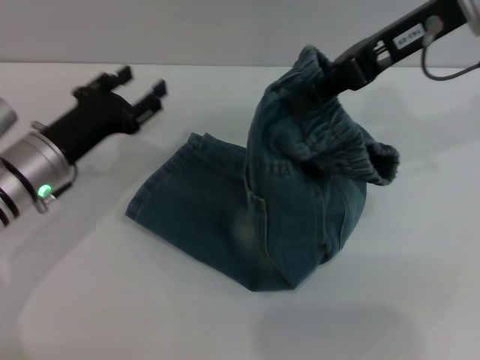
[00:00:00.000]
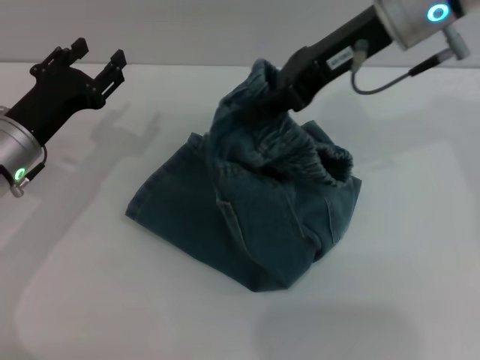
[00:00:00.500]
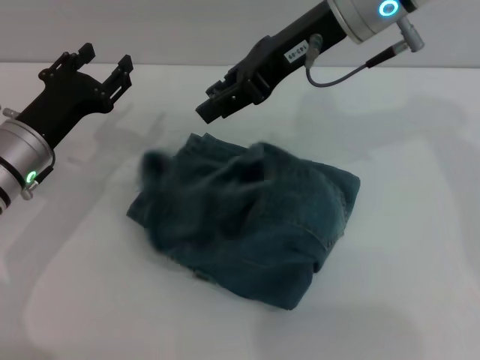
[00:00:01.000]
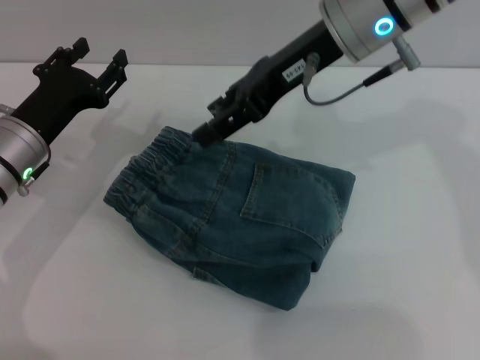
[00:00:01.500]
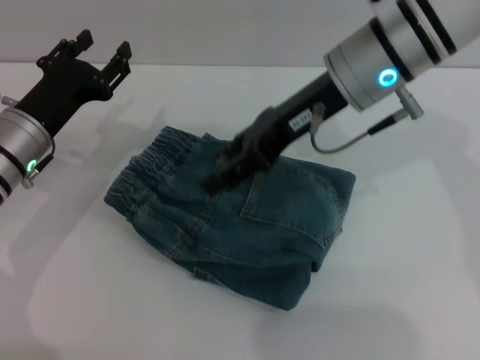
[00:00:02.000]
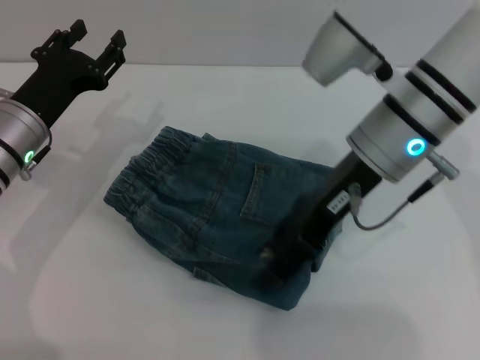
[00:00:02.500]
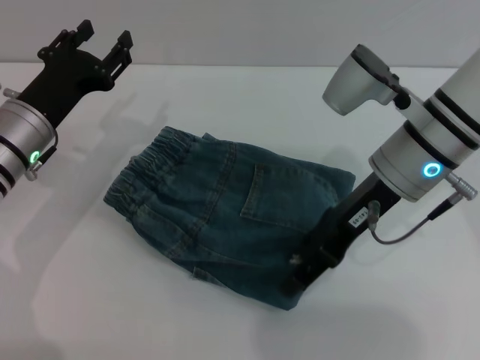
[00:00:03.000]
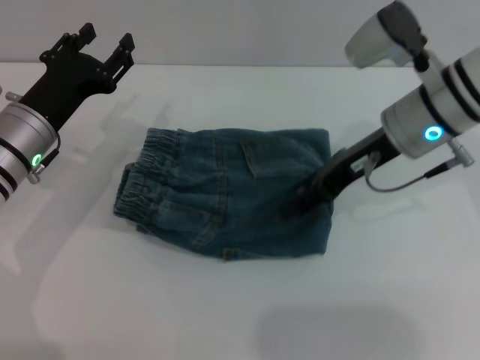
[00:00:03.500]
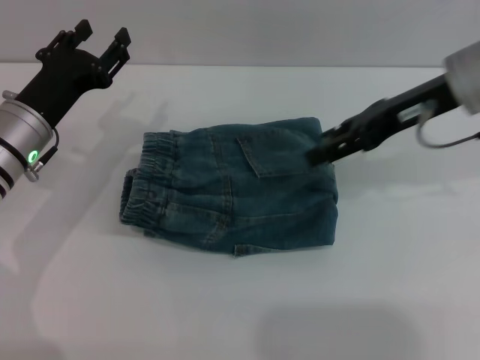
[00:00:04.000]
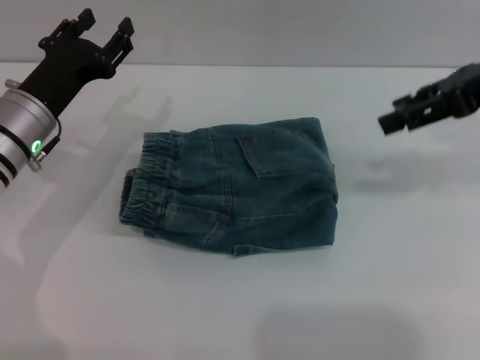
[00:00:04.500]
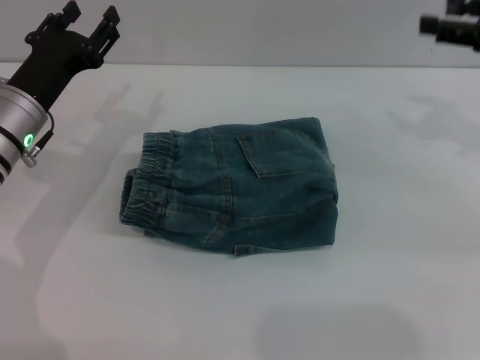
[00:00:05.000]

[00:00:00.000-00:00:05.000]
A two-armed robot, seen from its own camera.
Step, 00:00:01.500 to 00:00:03.500: Place the folded trousers onto the center area with the right grippers.
00:00:00.000 to 00:00:02.500: The right gripper travels downward and to the left by approximately 10 cm, and opens.
00:00:02.500 to 00:00:05.000: The right gripper goes about 20 cm to the right.

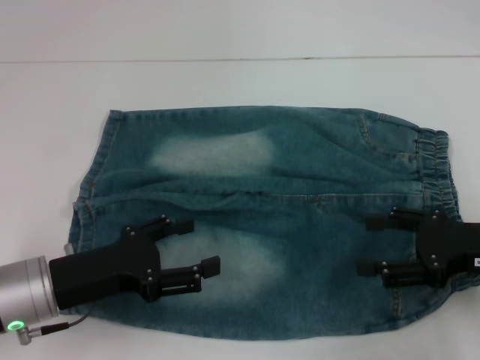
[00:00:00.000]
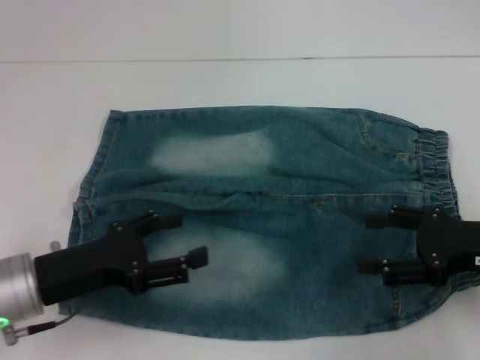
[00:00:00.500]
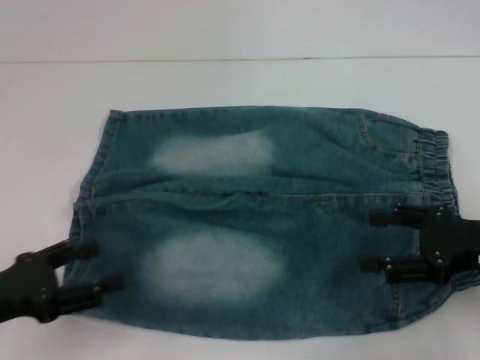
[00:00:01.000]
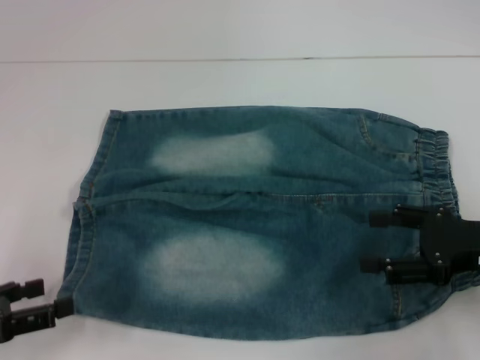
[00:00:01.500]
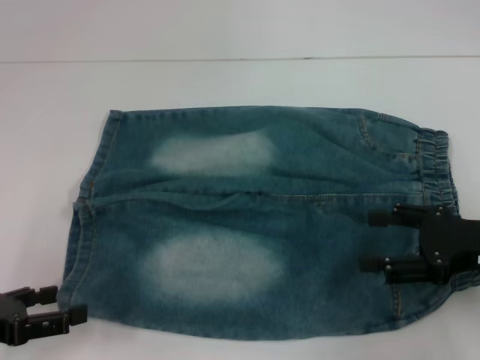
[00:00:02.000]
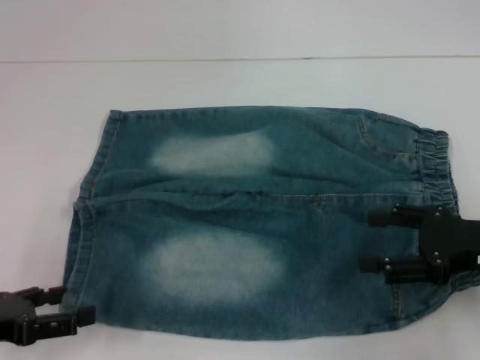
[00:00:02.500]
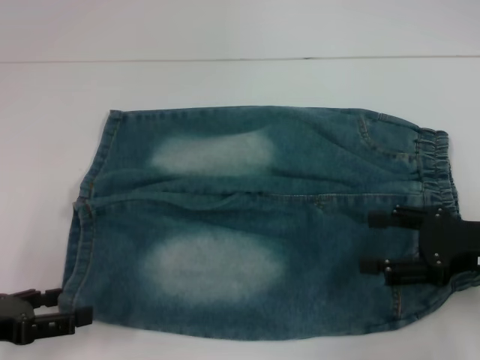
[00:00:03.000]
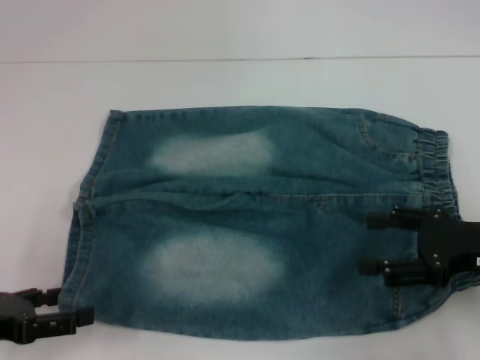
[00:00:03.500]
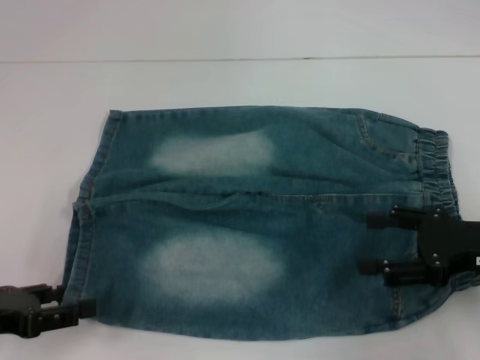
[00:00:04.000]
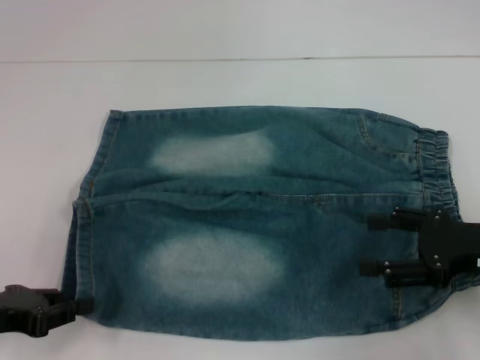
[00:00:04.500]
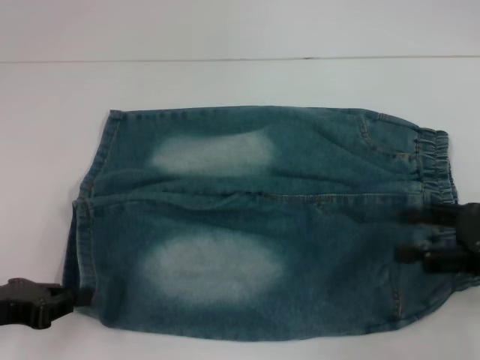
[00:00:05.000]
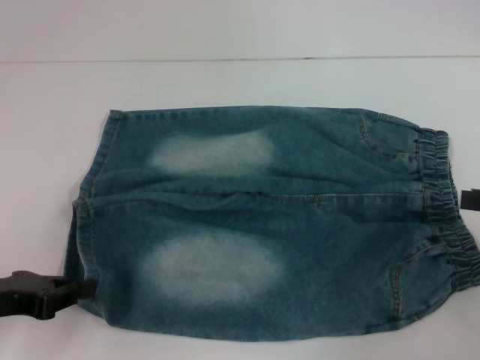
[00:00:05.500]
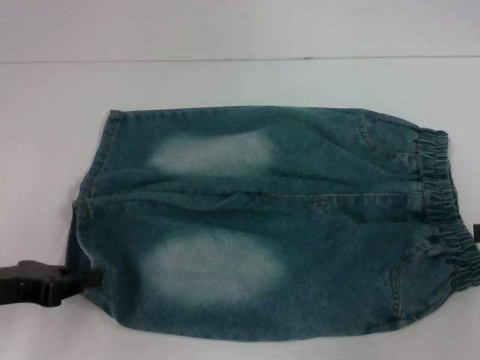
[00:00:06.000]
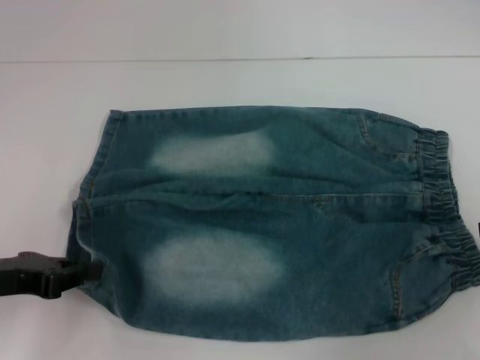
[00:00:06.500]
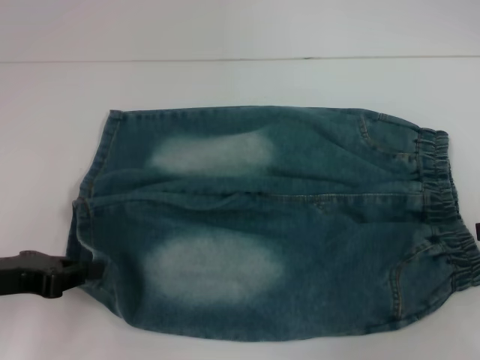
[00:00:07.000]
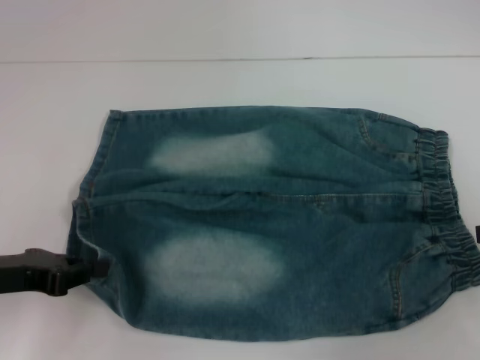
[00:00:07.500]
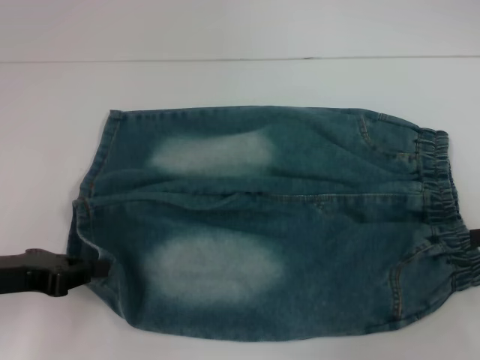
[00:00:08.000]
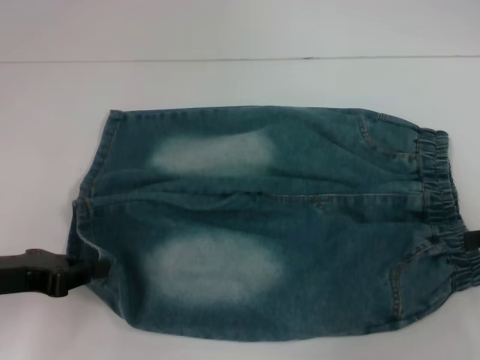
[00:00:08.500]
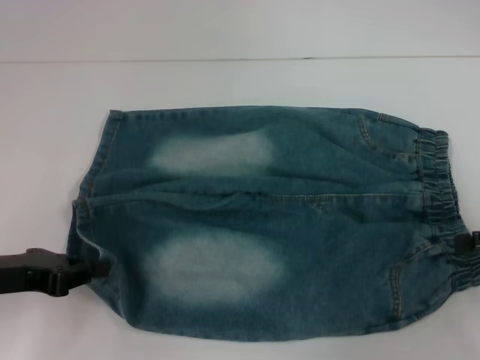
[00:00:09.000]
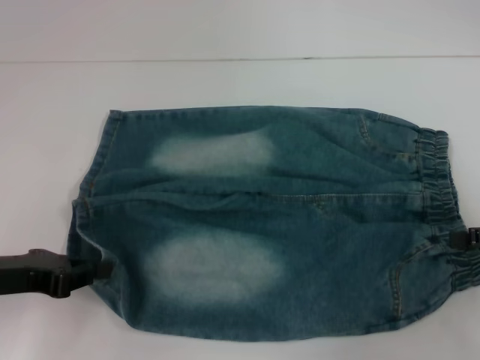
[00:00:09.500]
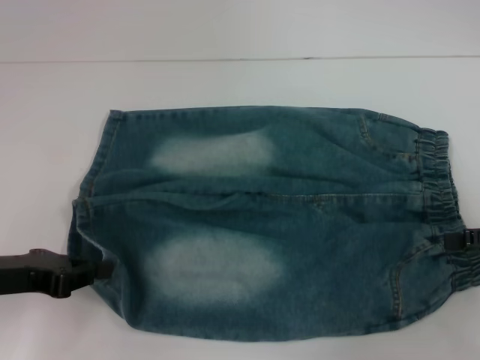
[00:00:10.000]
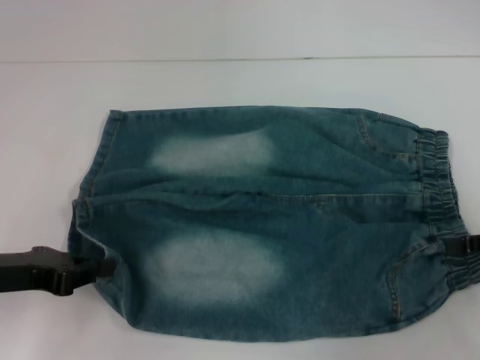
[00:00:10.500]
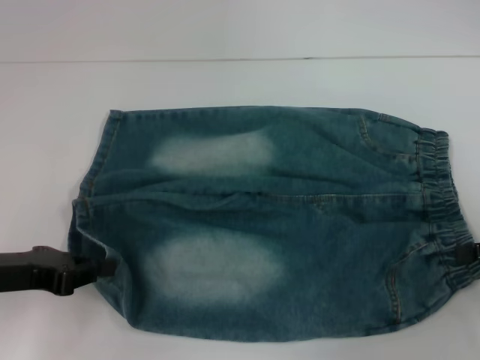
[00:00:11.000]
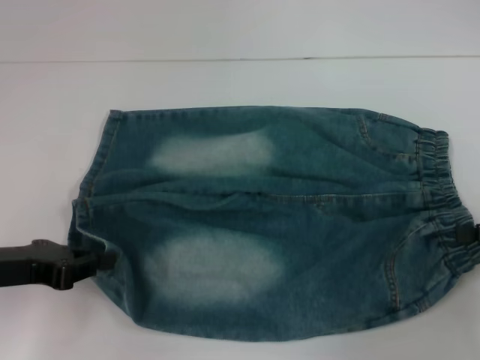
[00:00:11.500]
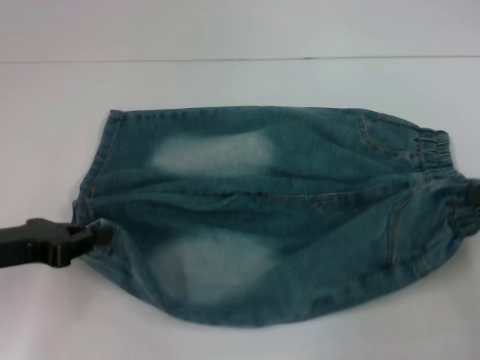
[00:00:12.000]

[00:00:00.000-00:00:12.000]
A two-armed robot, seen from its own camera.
Step, 00:00:00.000 to 00:00:04.000: Grab the lower left pant leg with your left hand.
Step, 00:00:04.500 to 00:00:10.500: Hold the lower right waistband with your right hand.
00:00:00.000 to 00:00:02.000: The left gripper travels to the left by roughly 10 cm.
00:00:02.000 to 00:00:04.000: There are only small adjustments of the grippers.
00:00:04.000 to 00:00:06.000: The right gripper is displaced to the right by roughly 10 cm. The left gripper closes.
00:00:06.000 to 00:00:08.000: There are only small adjustments of the grippers.
00:00:10.000 to 00:00:12.000: The right gripper closes its fingers.

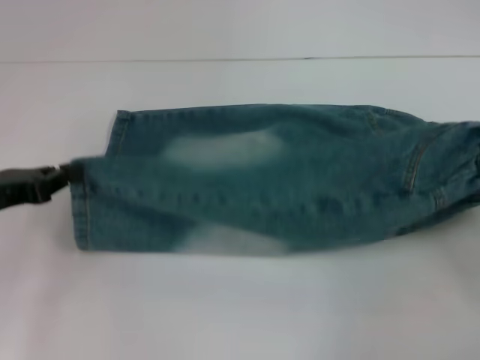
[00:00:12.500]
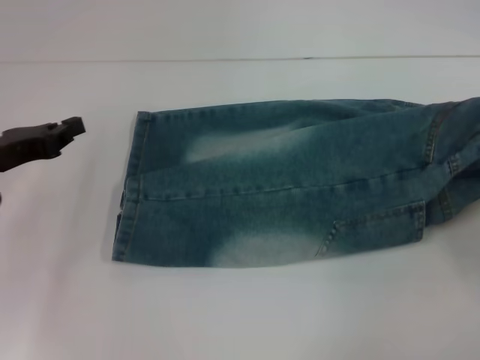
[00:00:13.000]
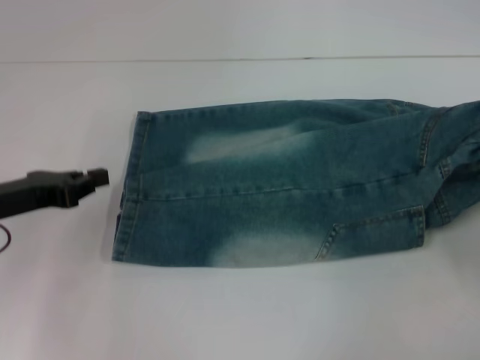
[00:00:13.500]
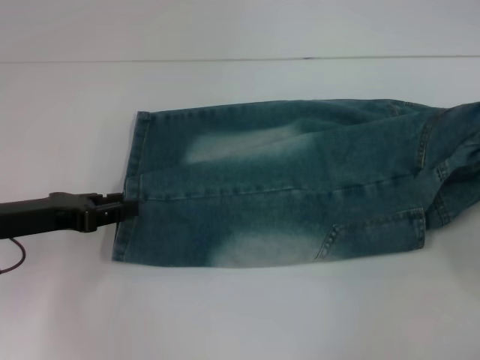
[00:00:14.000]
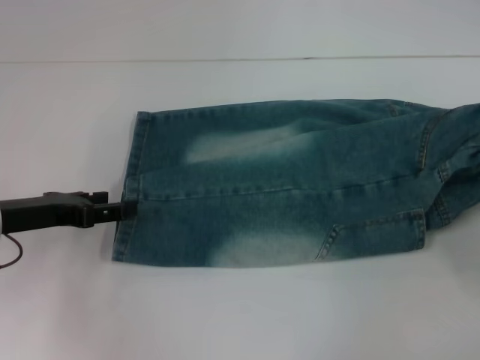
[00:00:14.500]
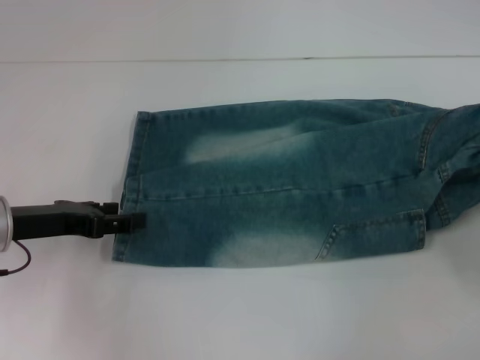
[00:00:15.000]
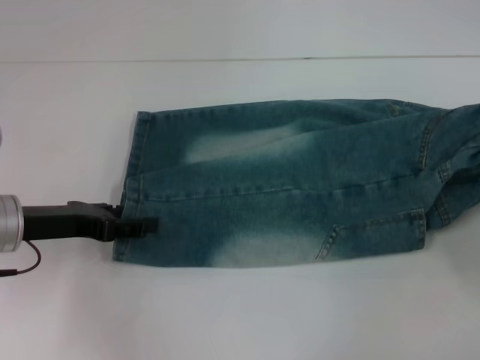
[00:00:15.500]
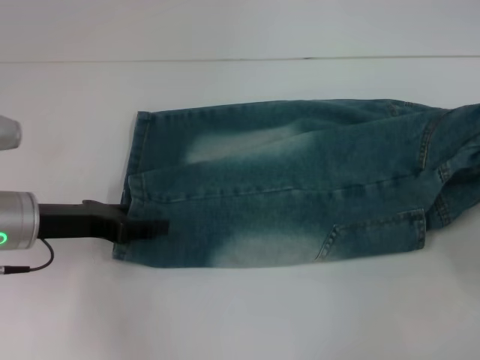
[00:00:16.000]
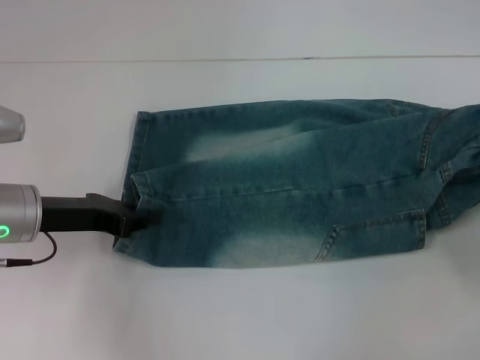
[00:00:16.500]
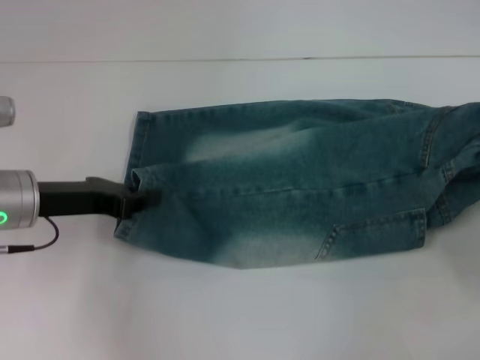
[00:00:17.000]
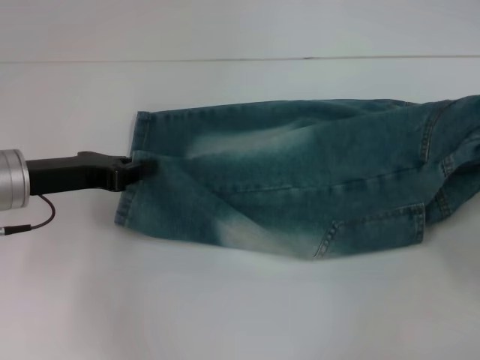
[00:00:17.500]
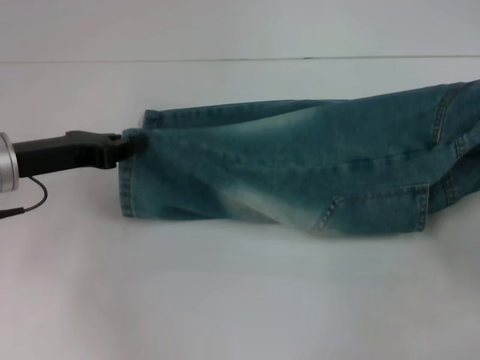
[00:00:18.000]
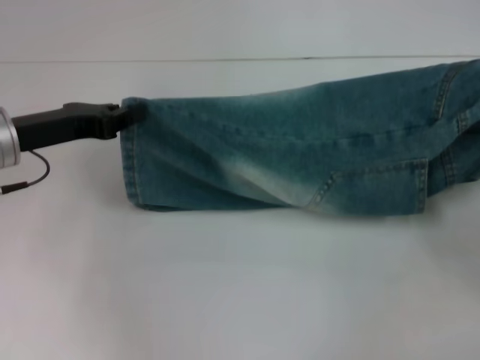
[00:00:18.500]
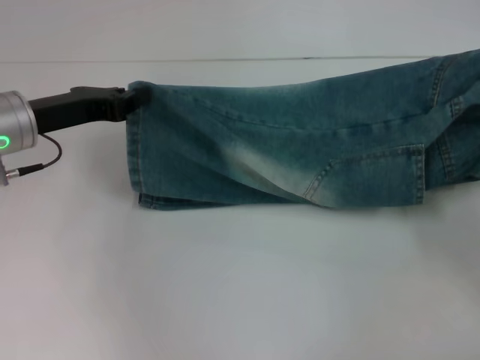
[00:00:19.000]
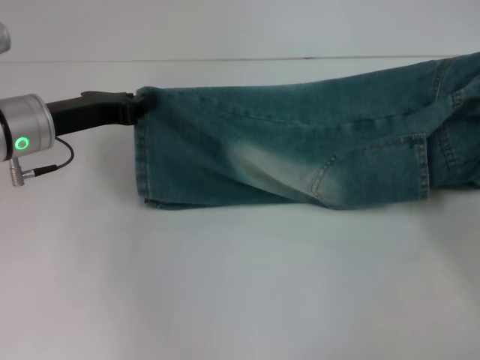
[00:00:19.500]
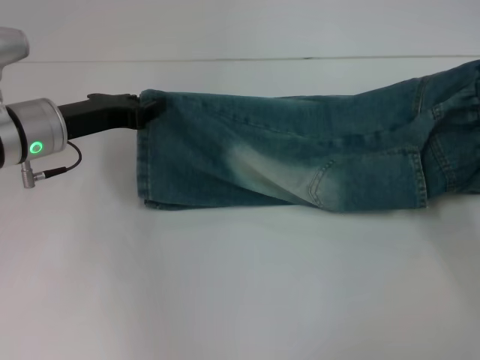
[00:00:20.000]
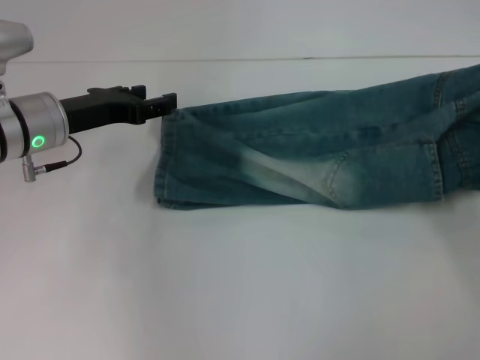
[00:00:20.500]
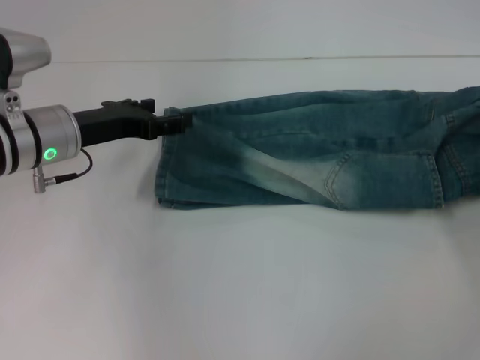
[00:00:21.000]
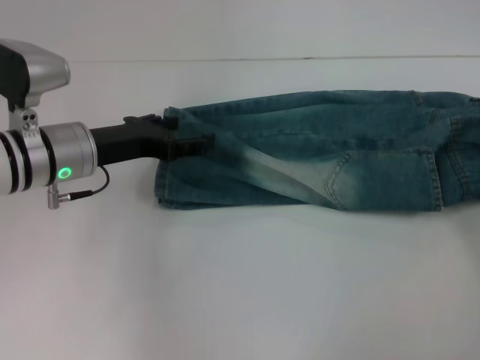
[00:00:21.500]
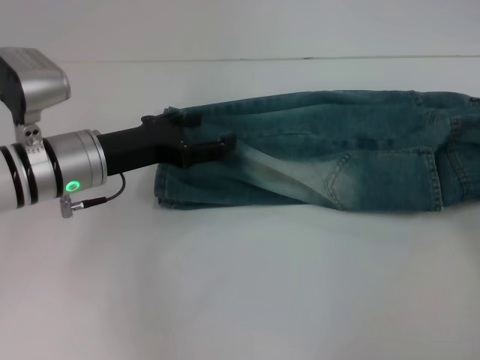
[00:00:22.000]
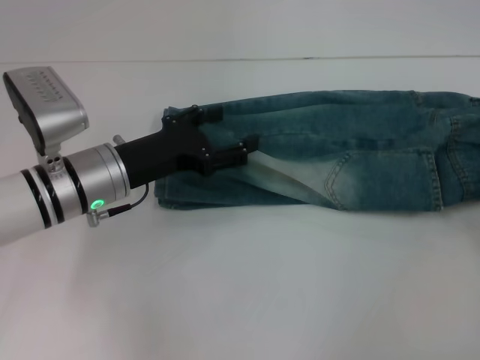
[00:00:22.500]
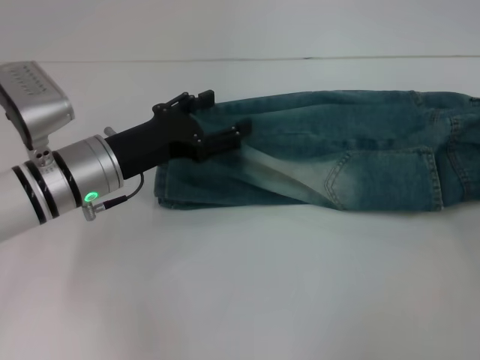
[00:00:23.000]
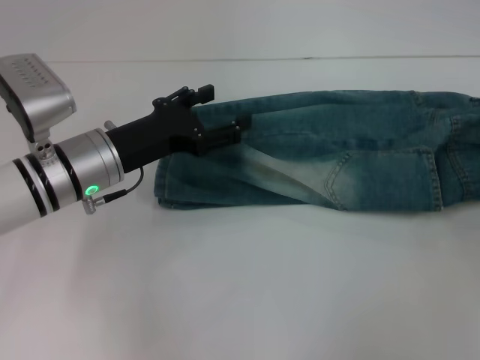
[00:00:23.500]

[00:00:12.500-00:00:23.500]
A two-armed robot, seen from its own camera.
Step, 00:00:12.500 to 00:00:20.000: Fold upward with your left hand.
Step, 00:00:20.500 to 00:00:22.000: Fold upward with your right hand.
00:00:12.500 to 00:00:14.500: The left gripper opens up.
00:00:14.500 to 00:00:16.000: The grippers move only a little.
00:00:16.000 to 00:00:18.000: The left gripper closes.
00:00:18.000 to 00:00:20.000: The right gripper shifts roughly 5 cm forward. The left gripper shifts by roughly 5 cm.
00:00:20.000 to 00:00:21.500: The left gripper opens up. Meanwhile the right gripper is displaced to the right by approximately 5 cm, and opens its fingers.
